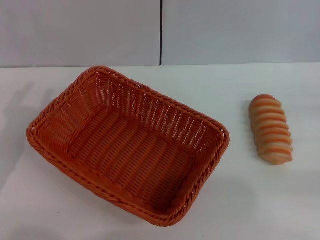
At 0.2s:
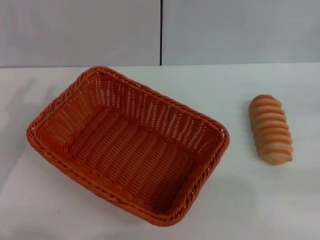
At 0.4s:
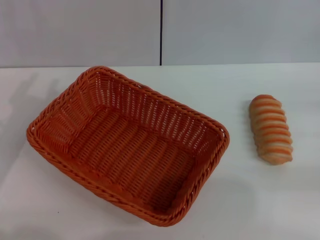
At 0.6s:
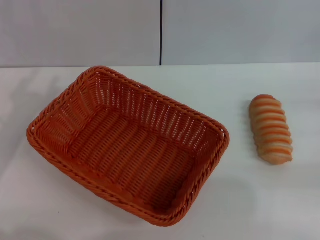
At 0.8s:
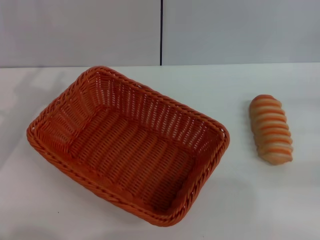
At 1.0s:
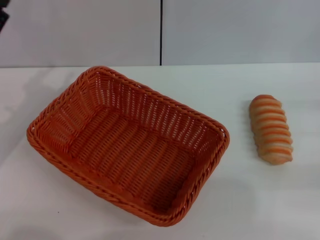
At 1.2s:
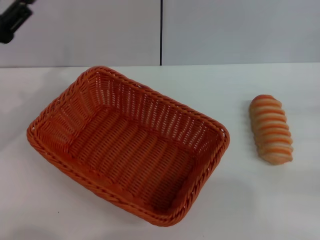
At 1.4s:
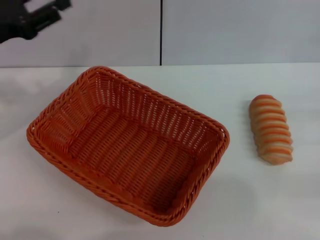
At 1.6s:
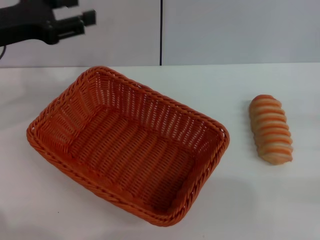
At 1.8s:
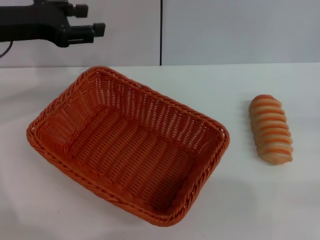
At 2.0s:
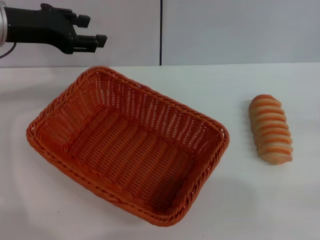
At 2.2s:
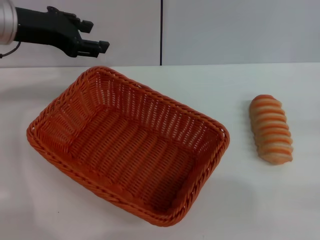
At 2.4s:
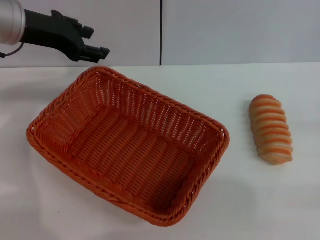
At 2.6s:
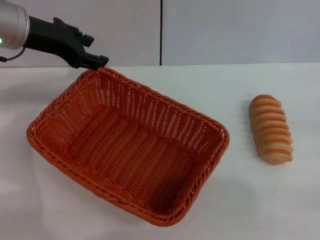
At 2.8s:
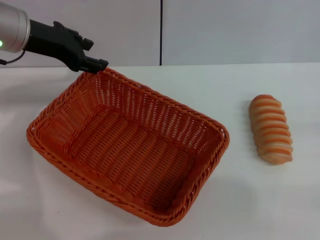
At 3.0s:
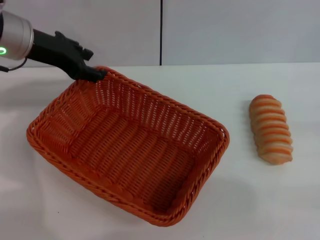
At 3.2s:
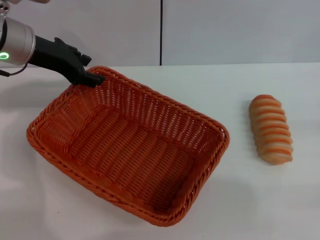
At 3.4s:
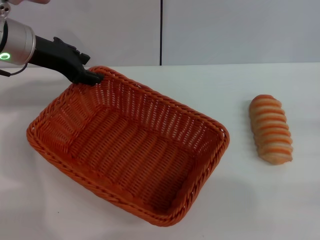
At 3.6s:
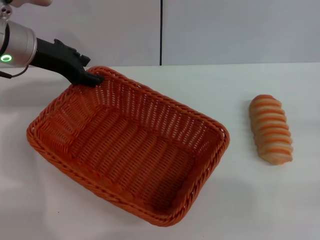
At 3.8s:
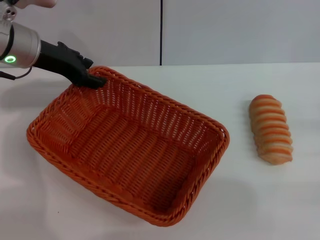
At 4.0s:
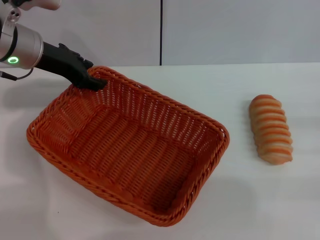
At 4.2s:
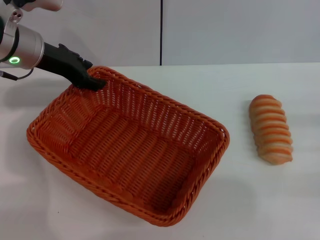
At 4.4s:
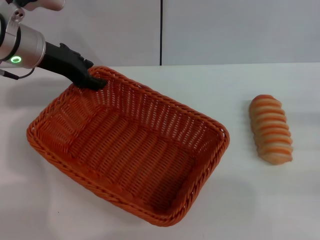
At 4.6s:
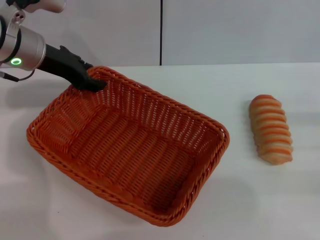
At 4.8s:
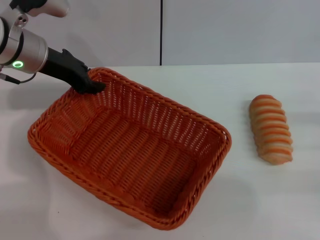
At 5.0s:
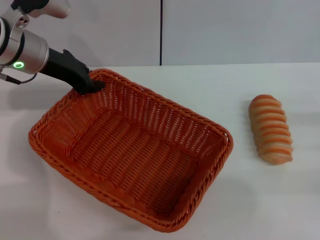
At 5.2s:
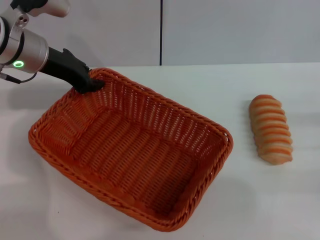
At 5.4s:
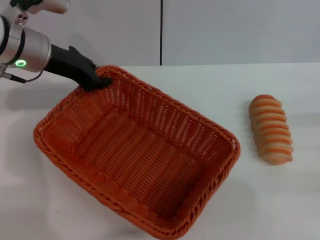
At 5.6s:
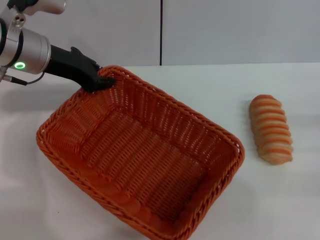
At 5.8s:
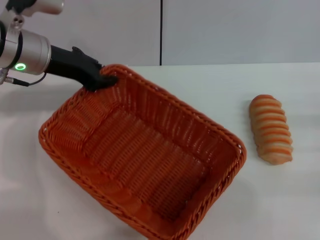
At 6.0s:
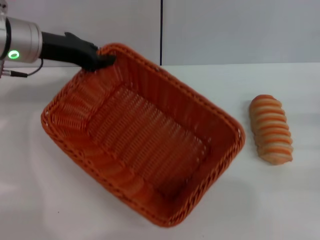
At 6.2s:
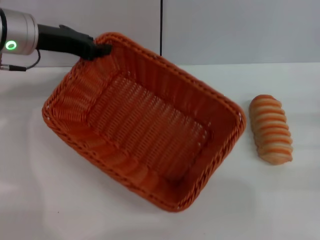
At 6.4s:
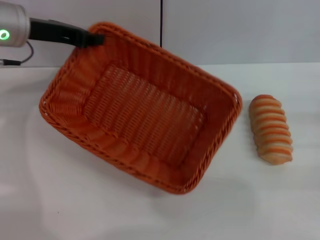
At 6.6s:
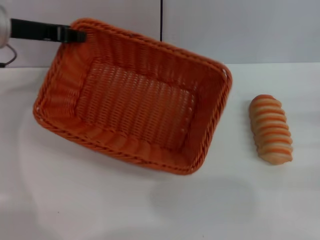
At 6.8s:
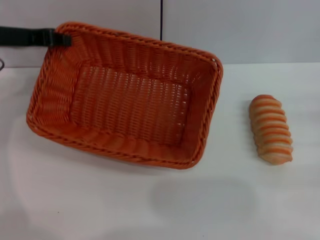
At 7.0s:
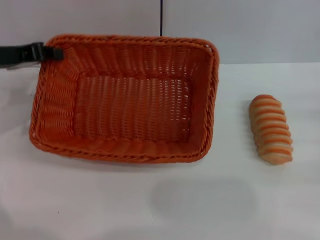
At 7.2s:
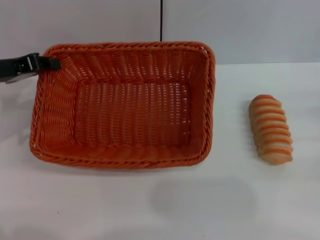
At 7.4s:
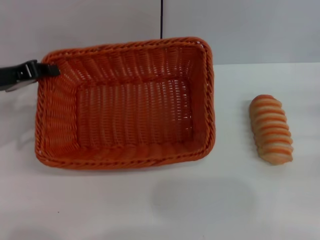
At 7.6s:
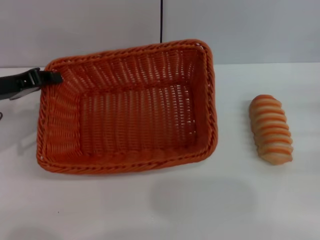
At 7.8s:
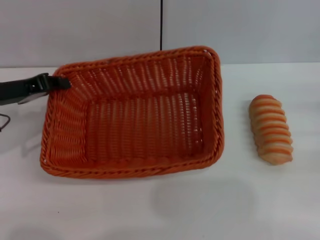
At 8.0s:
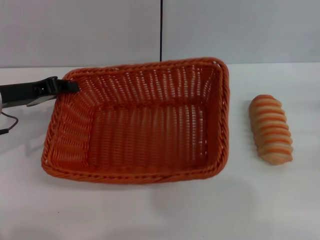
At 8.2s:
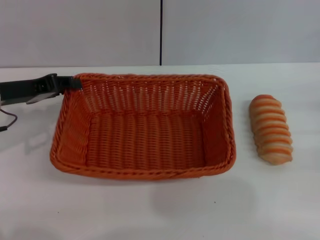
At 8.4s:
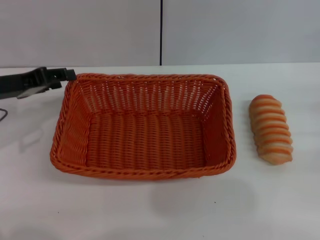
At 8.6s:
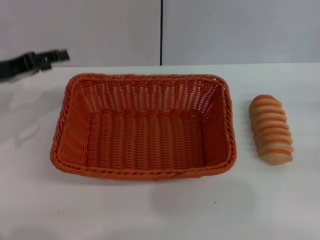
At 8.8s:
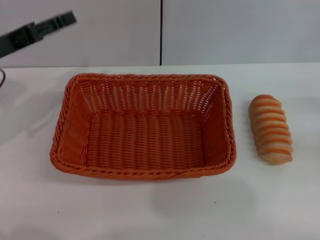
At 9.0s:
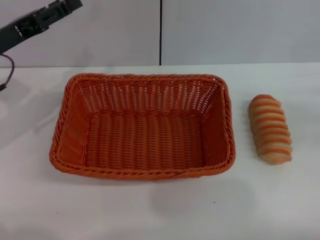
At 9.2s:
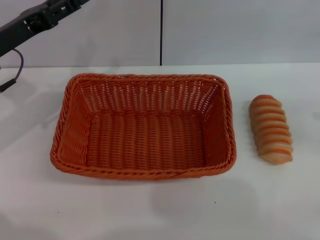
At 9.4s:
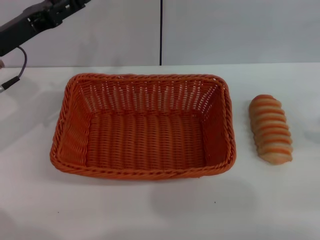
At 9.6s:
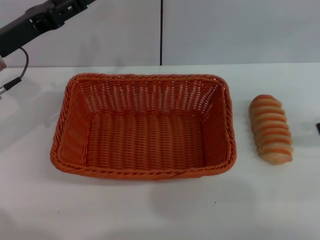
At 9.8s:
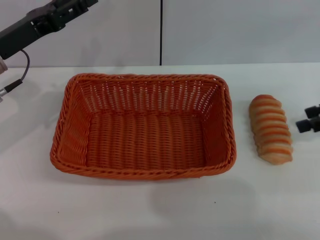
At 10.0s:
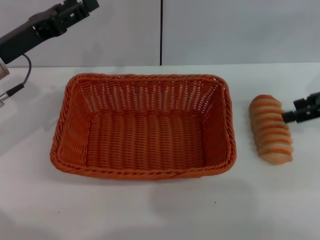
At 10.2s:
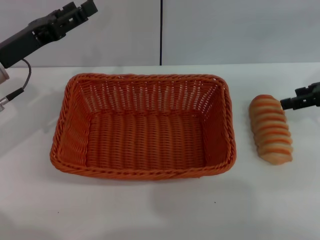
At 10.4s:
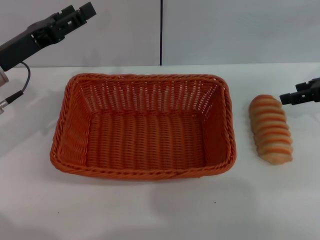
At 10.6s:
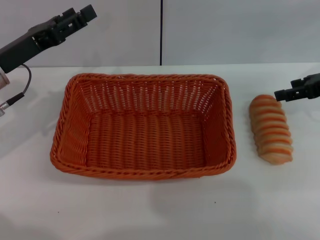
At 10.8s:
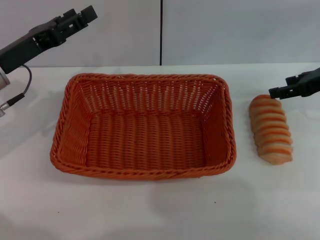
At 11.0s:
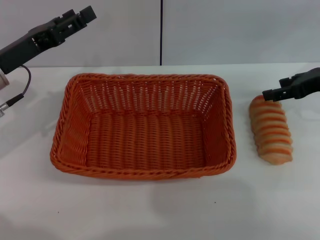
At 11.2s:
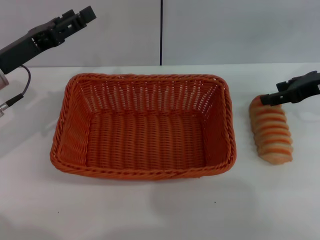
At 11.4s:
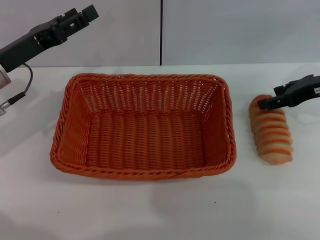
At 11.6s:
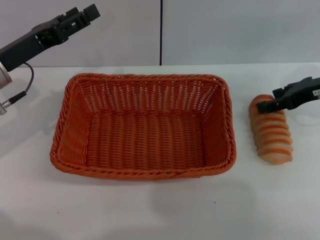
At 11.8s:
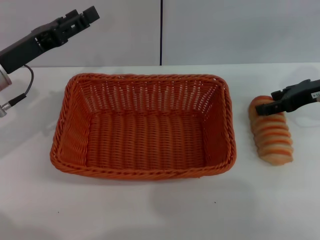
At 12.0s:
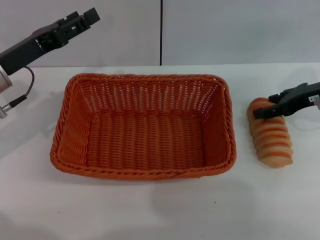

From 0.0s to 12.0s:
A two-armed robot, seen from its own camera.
Step, from 0.0s to 6.6s: Pick up the light basket with the left gripper.
Step, from 6.8s to 8.4s: Place the light basket in the center of view with the left gripper.
From 0.0s to 1.6s: The left gripper moves forward and upward, about 15 cm.
From 1.6s to 3.0s: The left gripper moves to the right, some 5 cm.
From 3.0s to 4.4s: There are only small adjustments of the grippers.
From 4.4s to 6.0s: The left gripper closes up.
From 6.0s to 7.6s: The left gripper shifts roughly 10 cm backward and to the left.
From 7.6s to 9.0s: The right gripper goes some 10 cm upward, while the left gripper opens its fingers.
From 9.0s to 10.4s: The right gripper heads to the left and forward, covering some 15 cm.
From 10.4s to 12.0s: The right gripper changes place by some 5 cm.

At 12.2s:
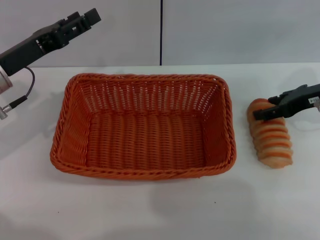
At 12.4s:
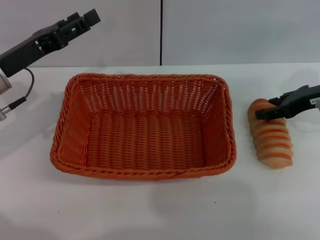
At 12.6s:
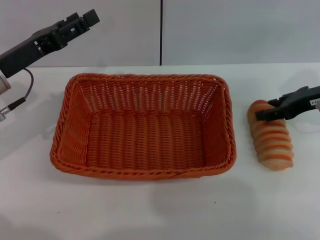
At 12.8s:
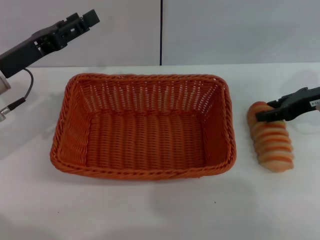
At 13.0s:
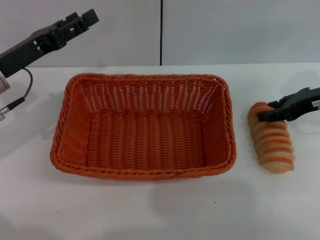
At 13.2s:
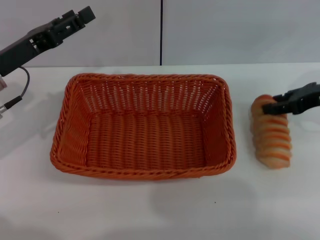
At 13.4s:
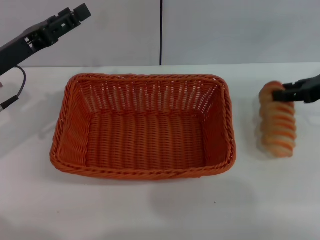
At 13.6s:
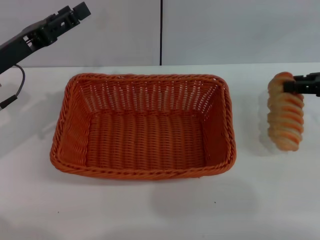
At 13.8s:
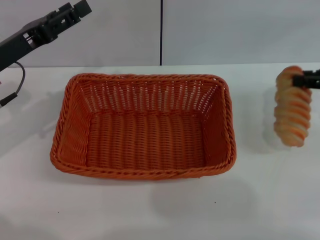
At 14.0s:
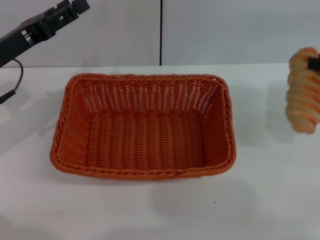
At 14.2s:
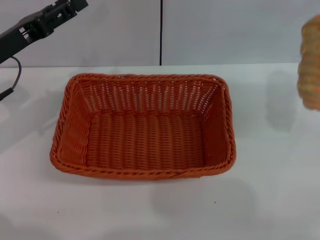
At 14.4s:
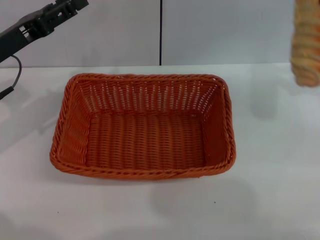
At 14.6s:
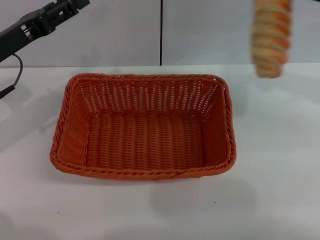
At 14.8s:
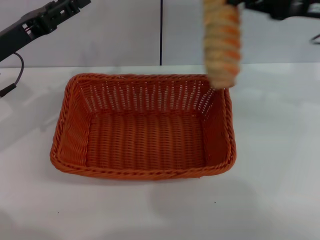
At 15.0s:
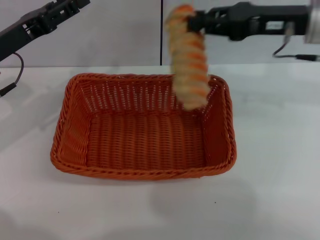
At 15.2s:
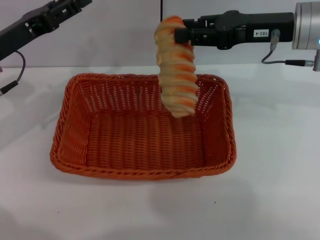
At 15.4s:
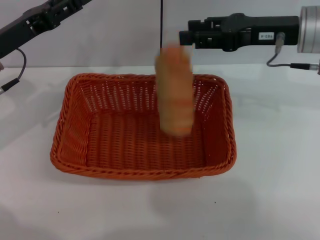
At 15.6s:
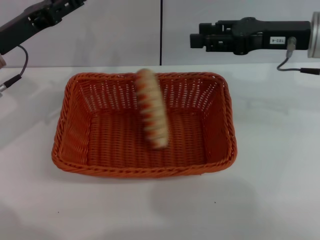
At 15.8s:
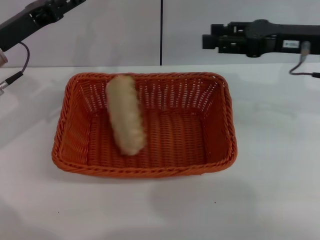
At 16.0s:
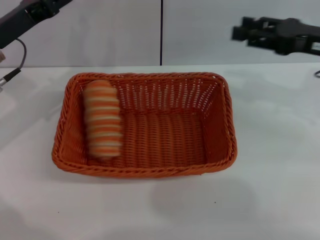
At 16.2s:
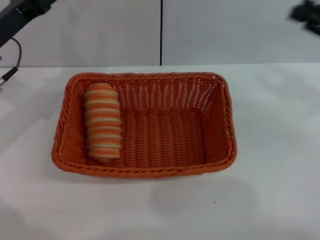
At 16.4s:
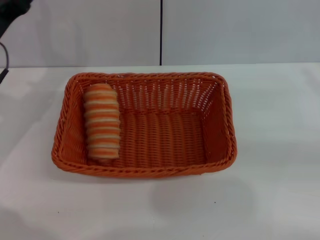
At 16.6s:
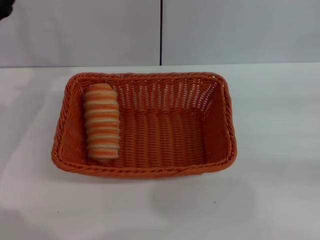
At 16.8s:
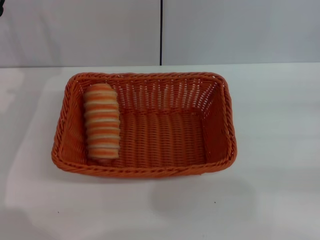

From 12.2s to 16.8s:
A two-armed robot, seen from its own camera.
Step, from 13.8s to 15.8s: Place the long bread into the light basket with the right gripper.
From 12.2s to 13.8s: The right gripper is displaced to the right by some 5 cm, and closes its fingers.
From 13.8s to 15.2s: The right gripper is displaced to the left by approximately 15 cm.
From 15.2s to 16.8s: The right gripper goes about 25 cm to the right and backward, and opens its fingers.
